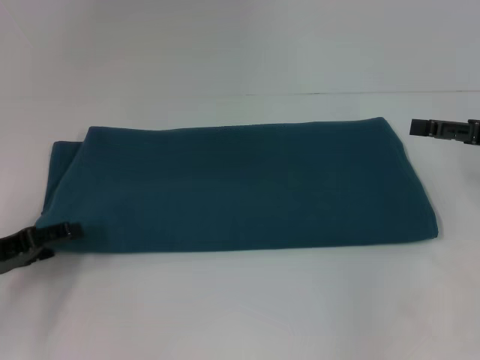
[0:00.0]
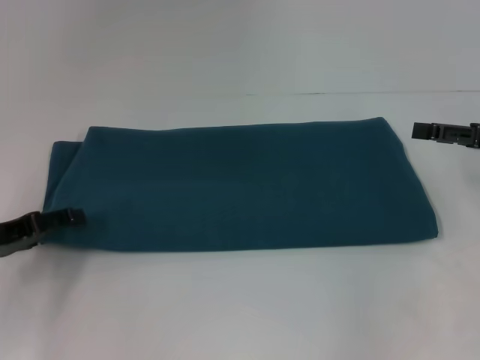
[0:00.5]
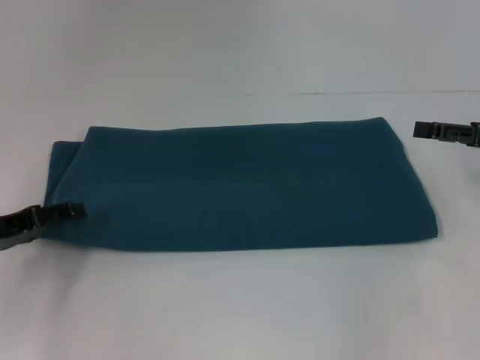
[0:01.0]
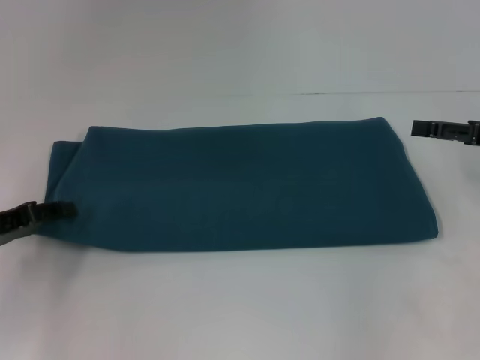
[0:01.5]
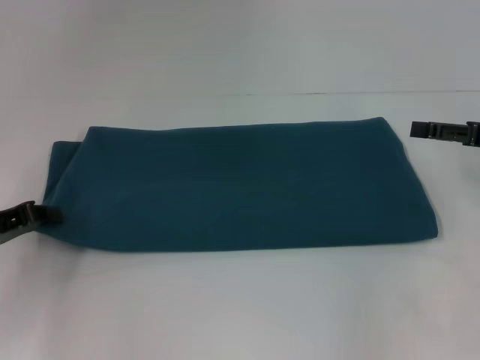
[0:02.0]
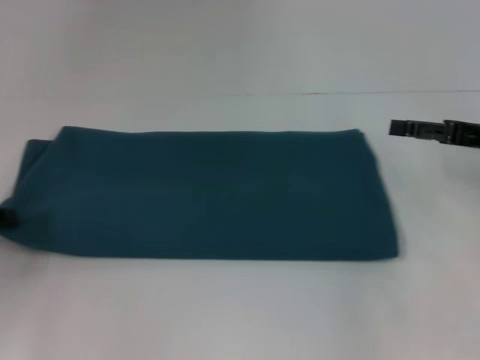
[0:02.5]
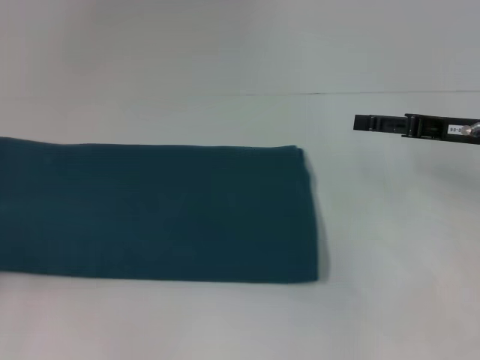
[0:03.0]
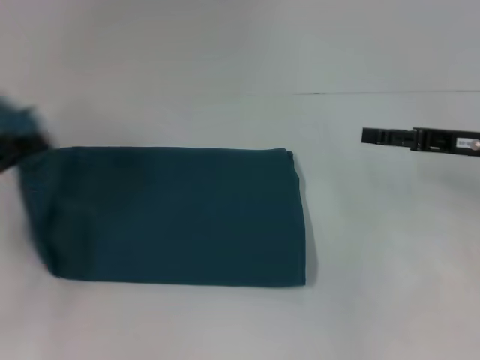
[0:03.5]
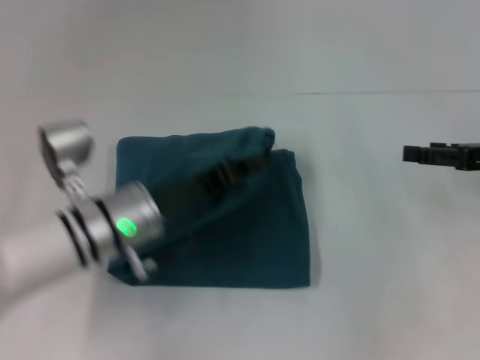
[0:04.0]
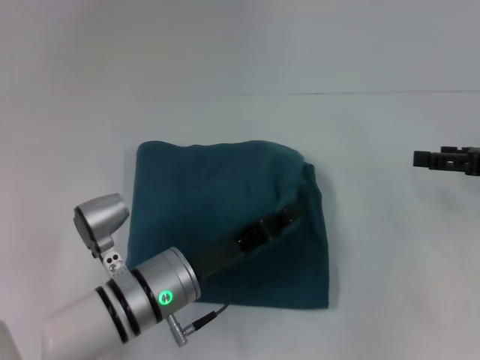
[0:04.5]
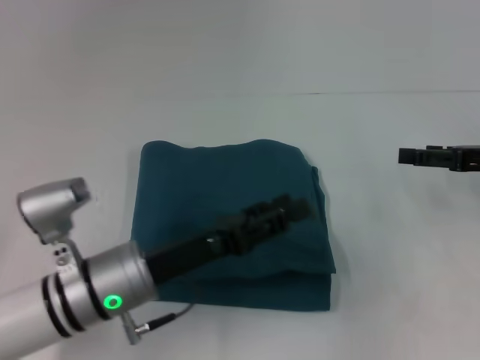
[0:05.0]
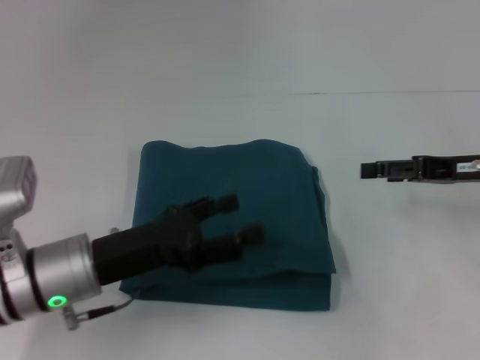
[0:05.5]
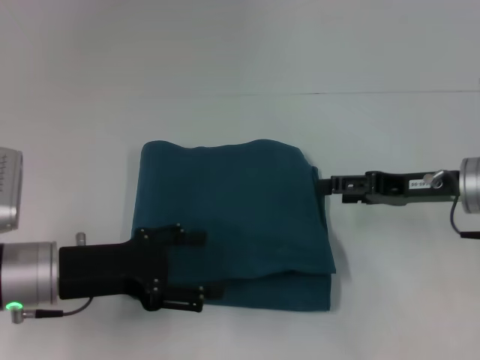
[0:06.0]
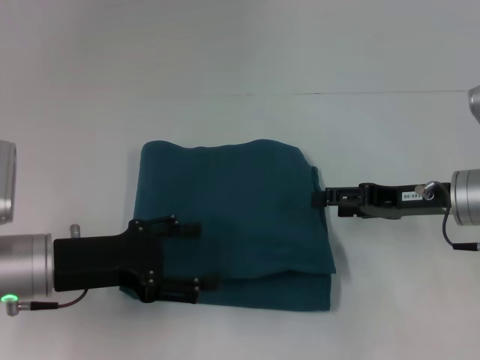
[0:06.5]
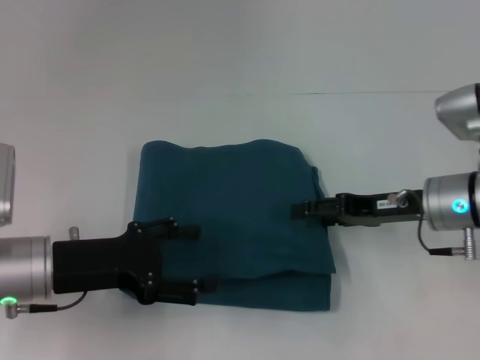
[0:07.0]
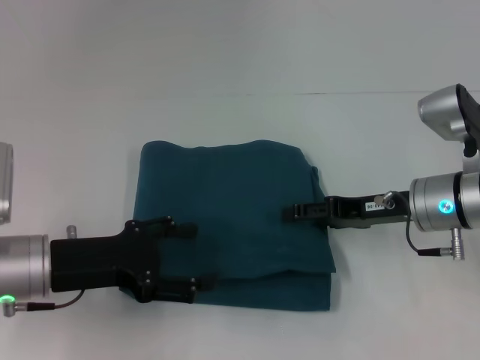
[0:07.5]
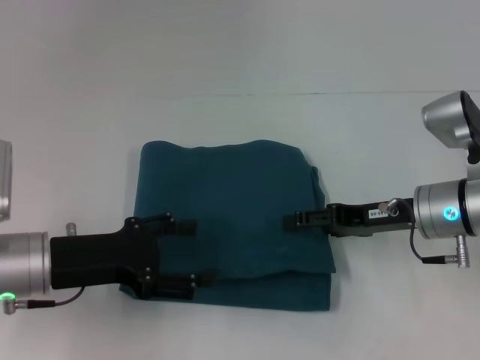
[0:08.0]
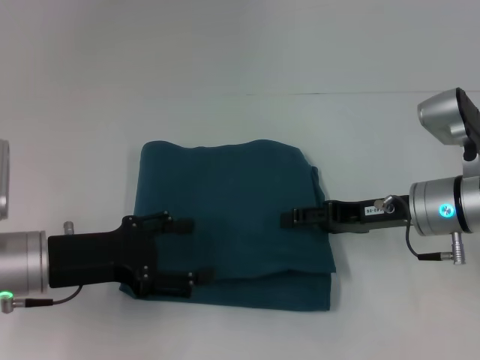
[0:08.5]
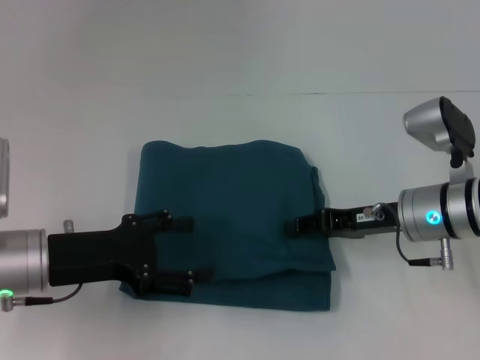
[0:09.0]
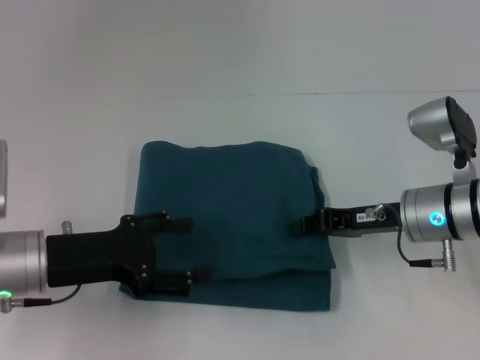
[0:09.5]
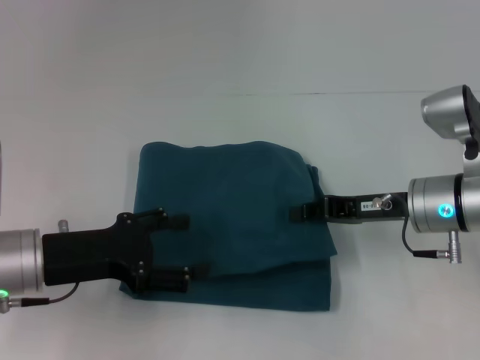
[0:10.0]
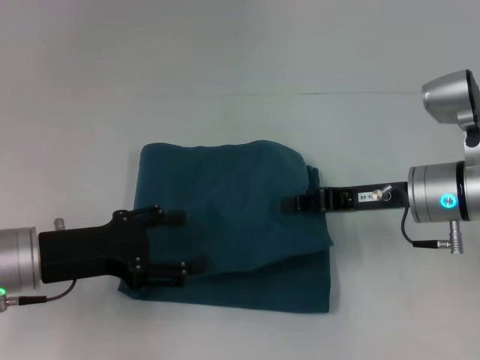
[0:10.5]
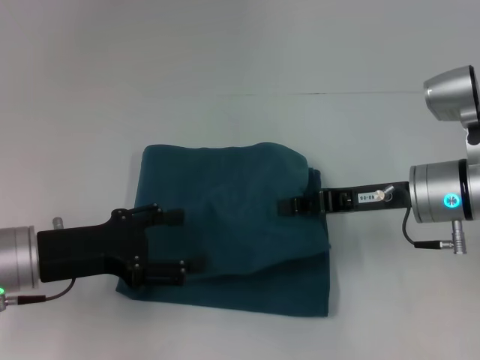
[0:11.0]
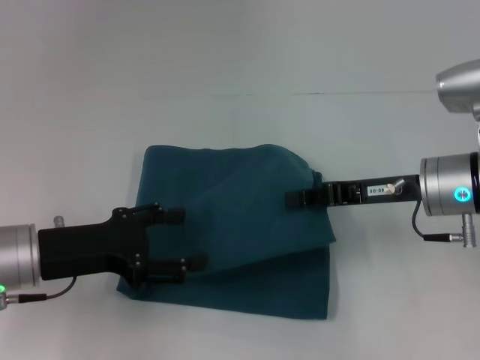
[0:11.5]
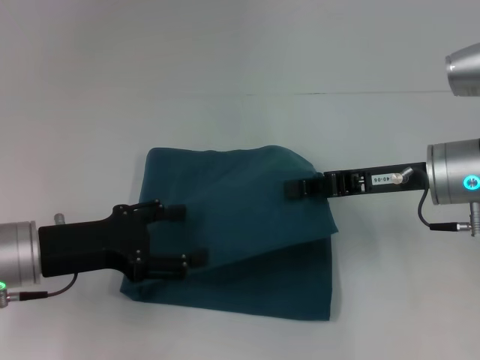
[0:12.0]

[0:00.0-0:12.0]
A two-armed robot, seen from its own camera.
Step, 0:00.0 to 0:04.5: Fold the clothes to the left.
0:00.0 to 0:02.0: The left gripper closes up.
0:02.0 to 0:04.0: The left gripper heads to the right, covering approximately 20 cm.
0:04.0 to 0:06.0: The left gripper heads to the left and backward, covering approximately 10 cm, and opens up. The right gripper goes about 10 cm to the left.
0:06.0 to 0:08.0: There are only small adjustments of the grippers.
0:08.0 to 0:10.0: The right gripper closes up.
0:10.0 to 0:12.0: The grippers move only a little.

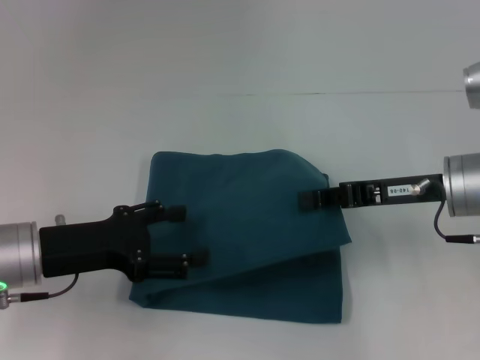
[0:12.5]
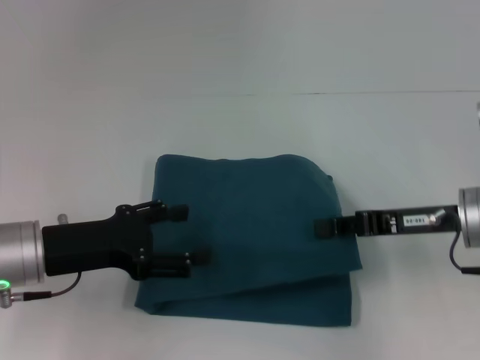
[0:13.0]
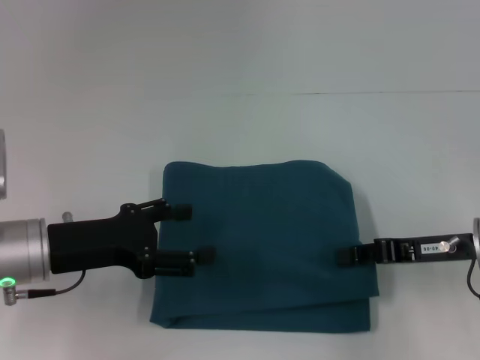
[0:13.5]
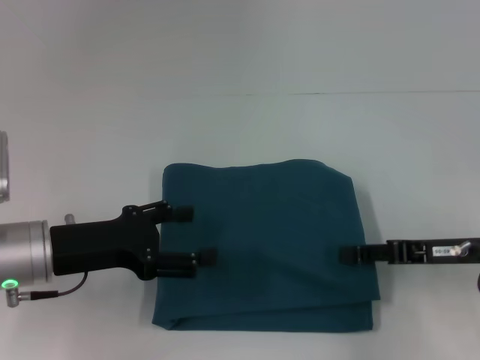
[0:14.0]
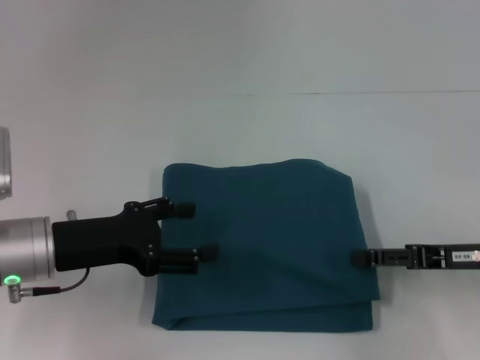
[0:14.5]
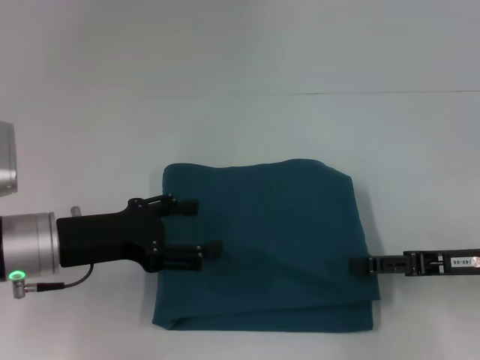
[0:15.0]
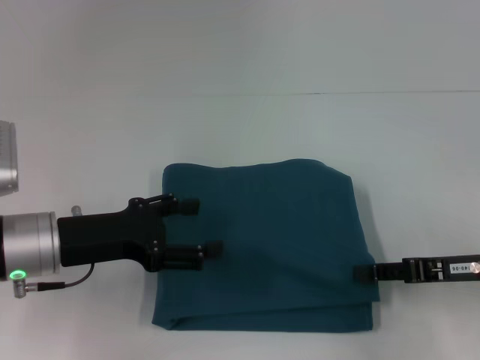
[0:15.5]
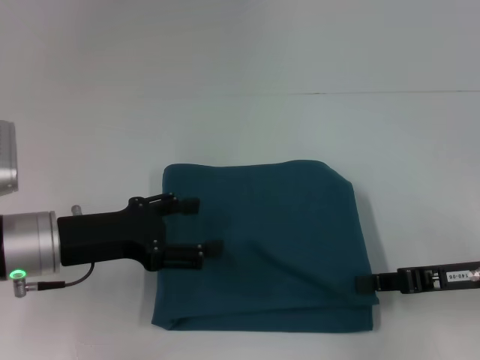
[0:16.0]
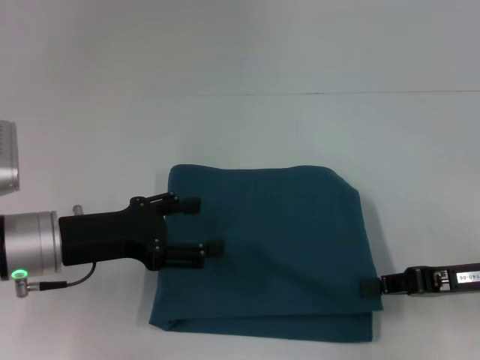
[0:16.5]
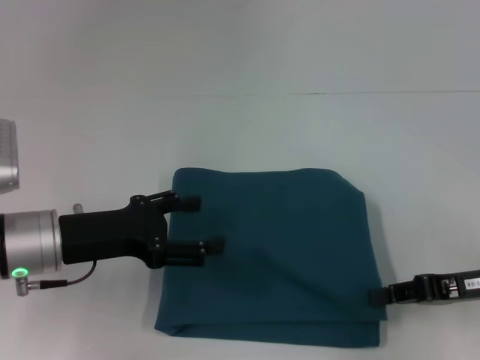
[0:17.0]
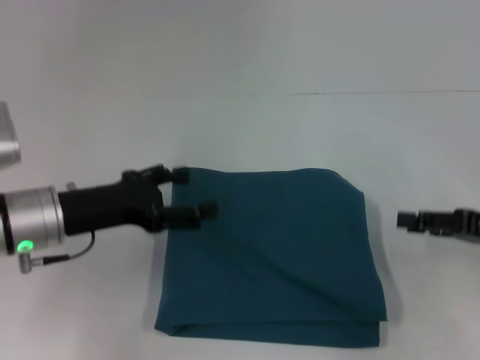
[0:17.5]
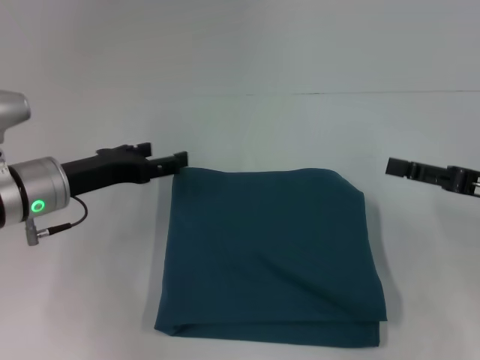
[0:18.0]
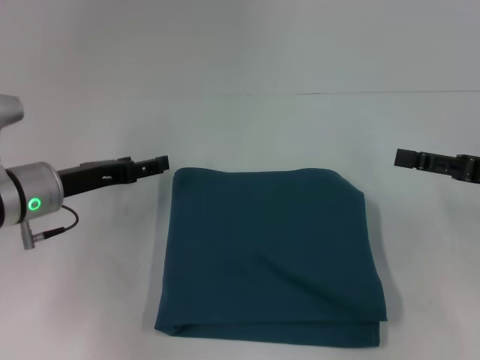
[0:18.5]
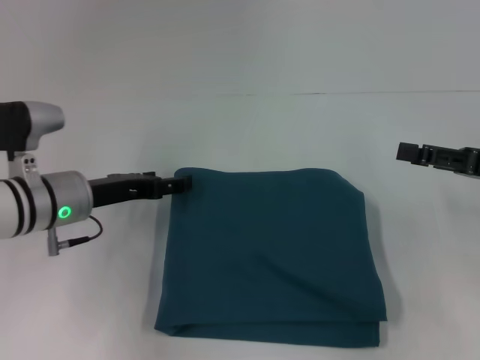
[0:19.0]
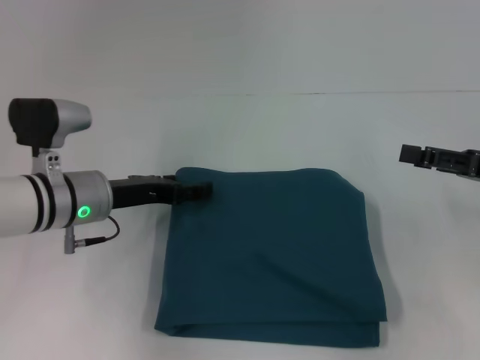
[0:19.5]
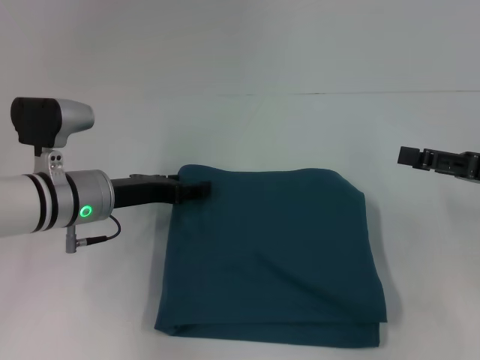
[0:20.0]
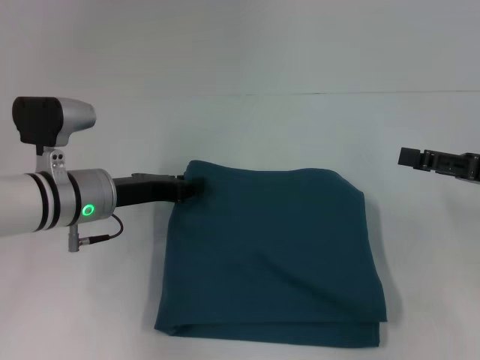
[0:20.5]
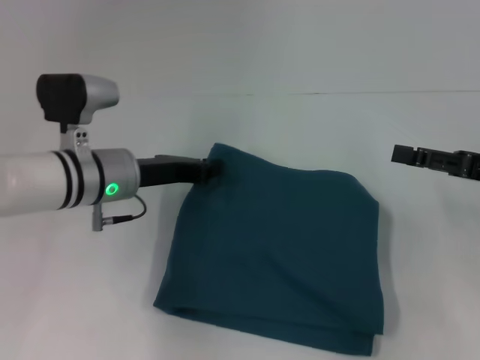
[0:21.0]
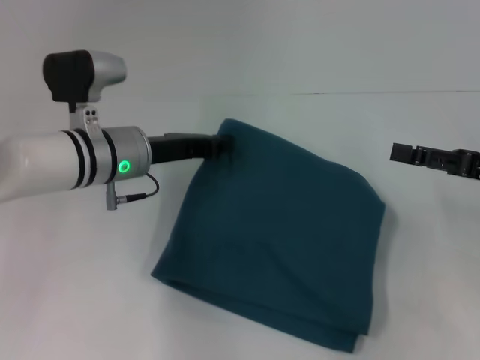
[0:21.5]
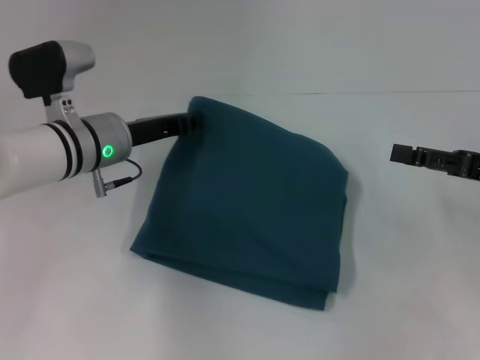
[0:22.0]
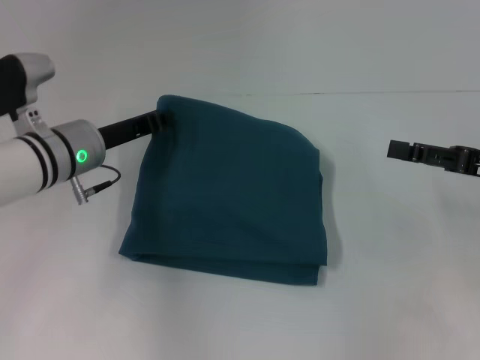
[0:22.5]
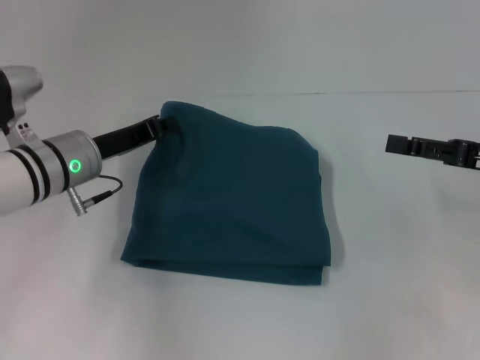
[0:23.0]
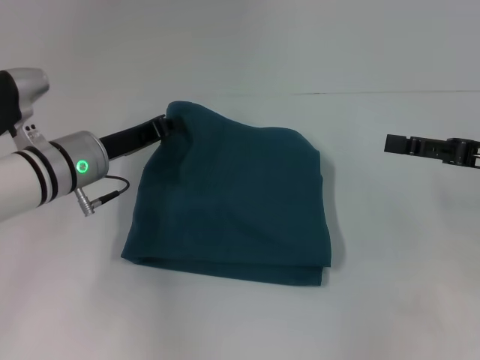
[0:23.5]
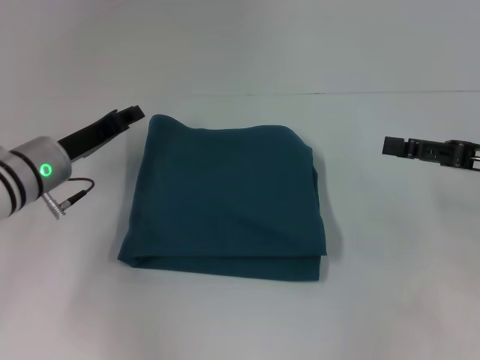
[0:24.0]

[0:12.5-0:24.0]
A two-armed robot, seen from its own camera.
0:12.5 to 0:14.5: The right gripper goes about 10 cm to the right and downward, and opens its fingers.
0:14.5 to 0:16.5: The right gripper closes its fingers.
0:16.5 to 0:18.5: The right gripper moves roughly 5 cm, and opens; the left gripper goes some 5 cm forward.
0:18.5 to 0:20.0: There are only small adjustments of the grippers.
0:20.0 to 0:22.0: The left gripper shifts by about 5 cm, and closes up.
0:22.0 to 0:24.0: The left gripper heads to the left, covering roughly 5 cm.

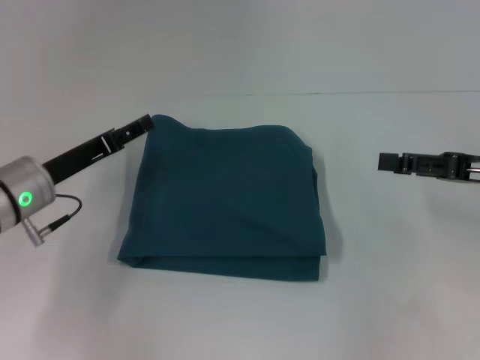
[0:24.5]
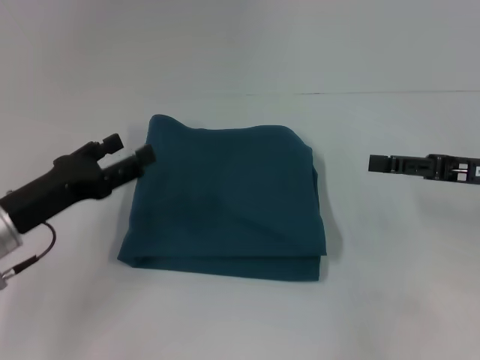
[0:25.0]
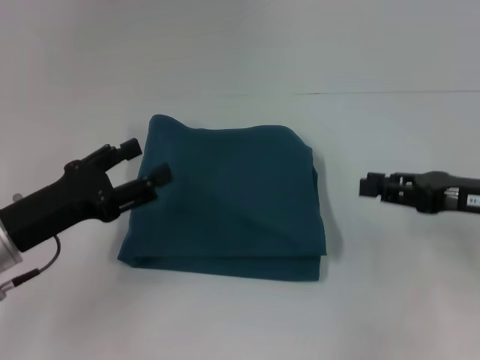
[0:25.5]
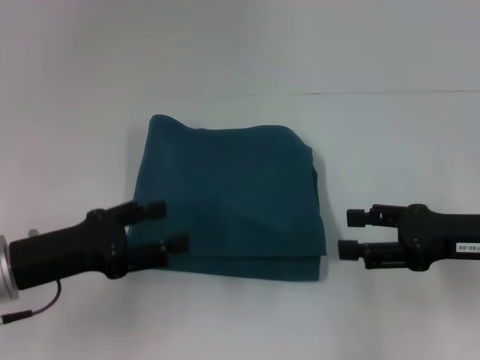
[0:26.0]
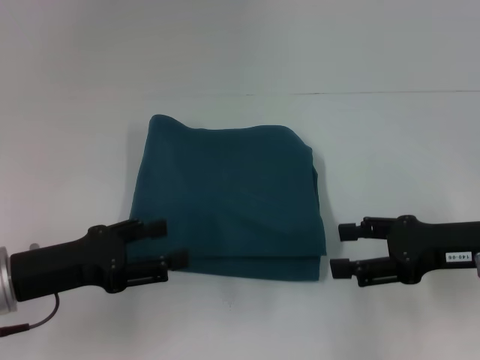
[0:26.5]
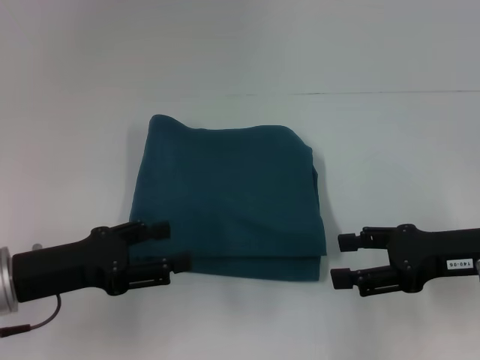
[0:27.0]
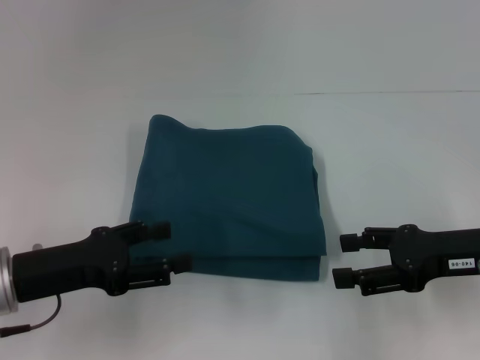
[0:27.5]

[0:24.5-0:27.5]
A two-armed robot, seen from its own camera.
0:24.5 to 0:26.0: The left gripper is displaced backward by approximately 10 cm. The right gripper ends up some 5 cm from where it was.
0:26.0 to 0:27.5: There are only small adjustments of the grippers.
